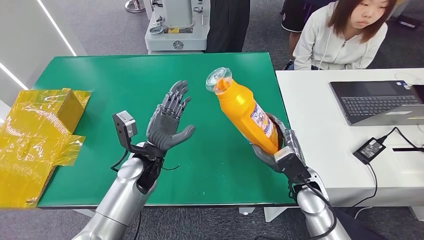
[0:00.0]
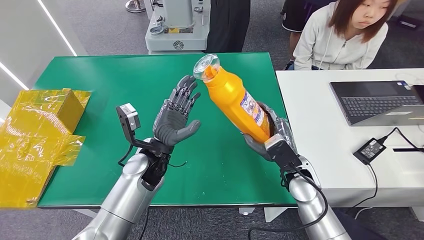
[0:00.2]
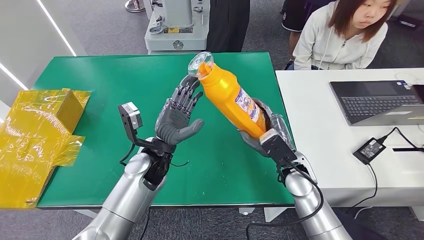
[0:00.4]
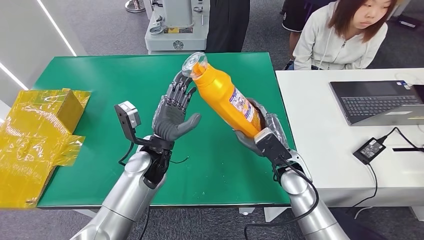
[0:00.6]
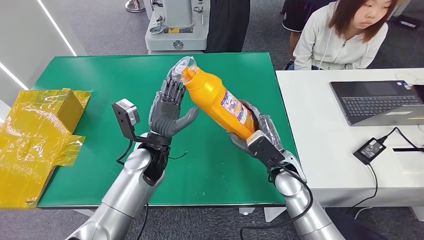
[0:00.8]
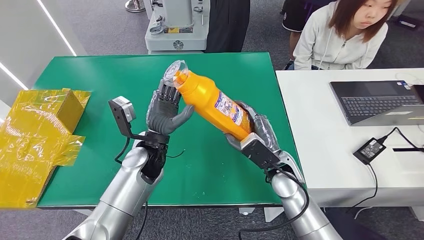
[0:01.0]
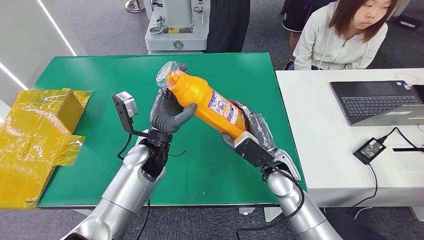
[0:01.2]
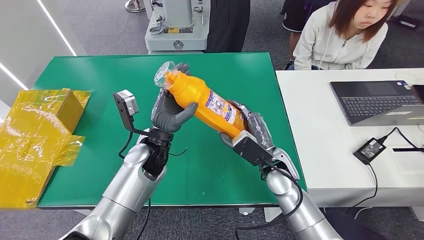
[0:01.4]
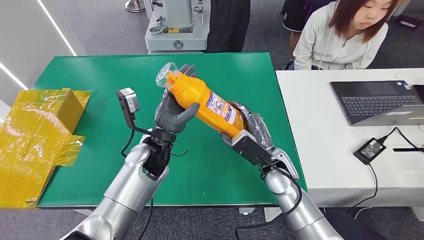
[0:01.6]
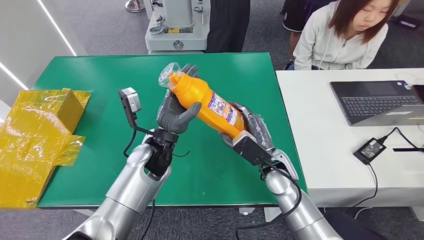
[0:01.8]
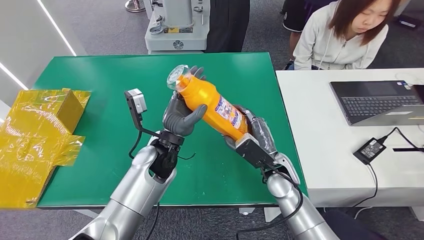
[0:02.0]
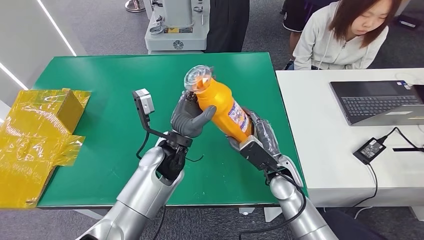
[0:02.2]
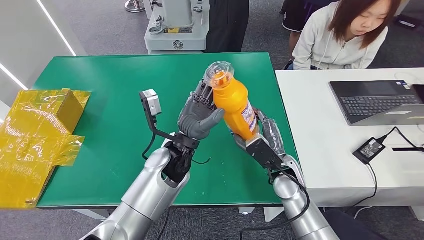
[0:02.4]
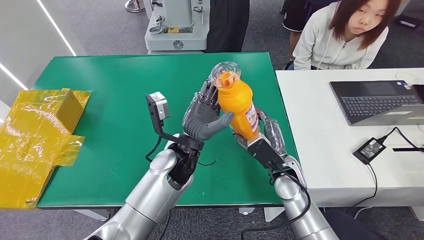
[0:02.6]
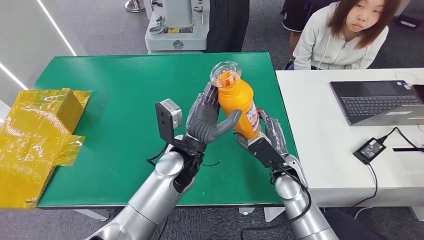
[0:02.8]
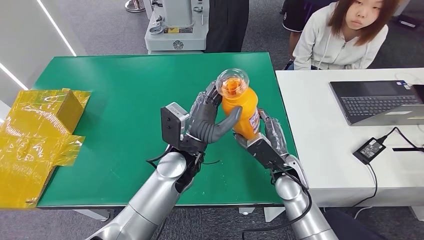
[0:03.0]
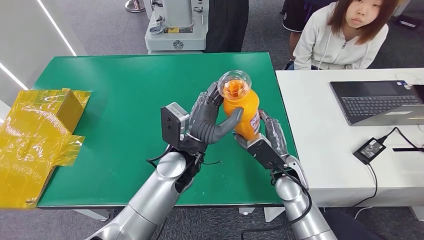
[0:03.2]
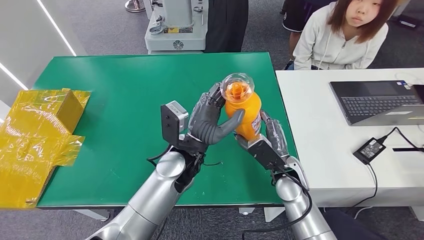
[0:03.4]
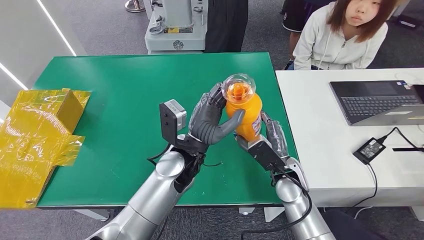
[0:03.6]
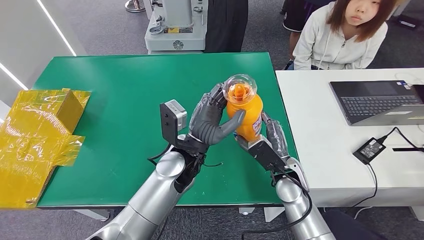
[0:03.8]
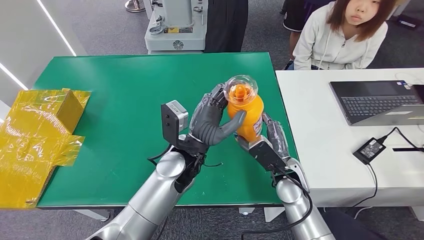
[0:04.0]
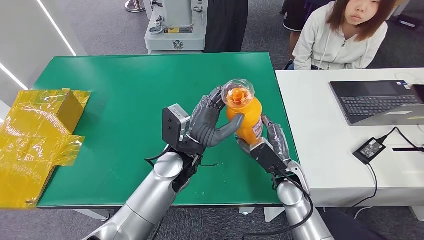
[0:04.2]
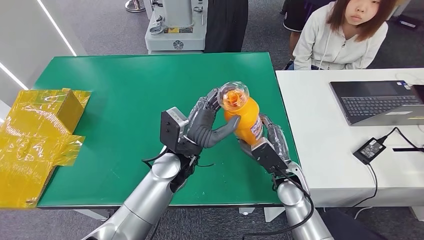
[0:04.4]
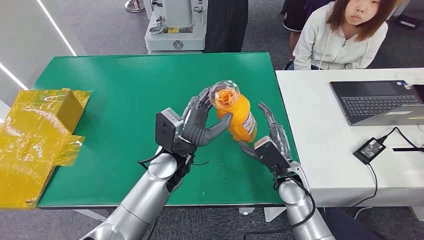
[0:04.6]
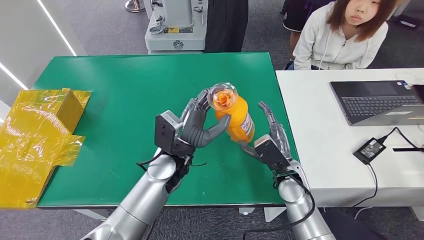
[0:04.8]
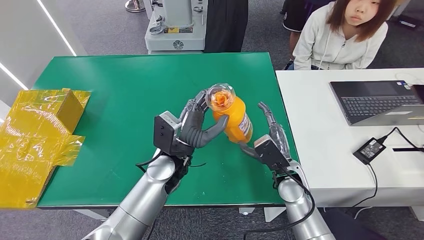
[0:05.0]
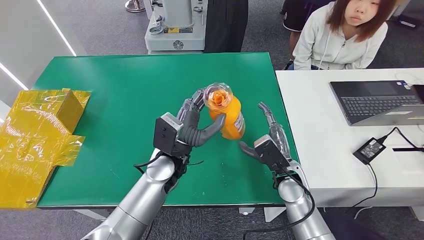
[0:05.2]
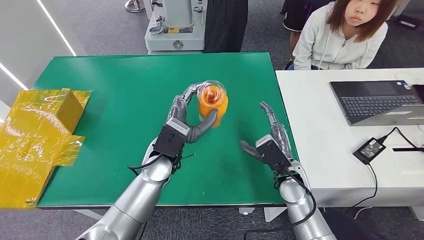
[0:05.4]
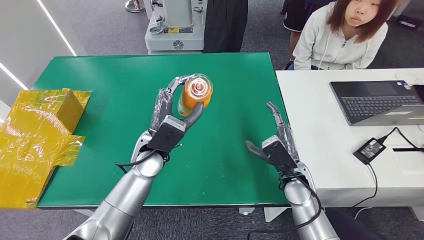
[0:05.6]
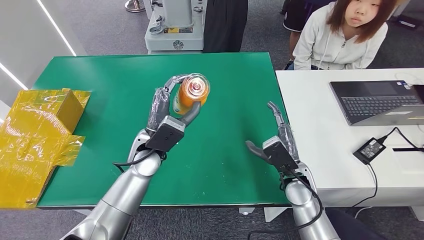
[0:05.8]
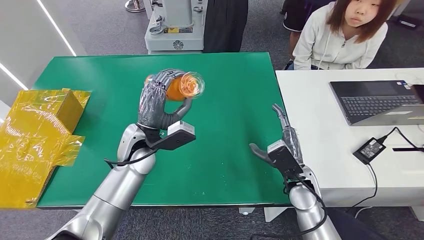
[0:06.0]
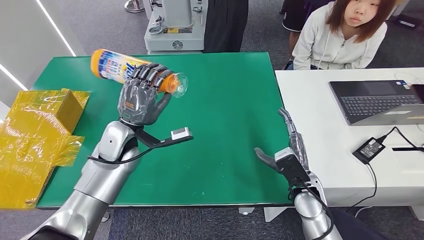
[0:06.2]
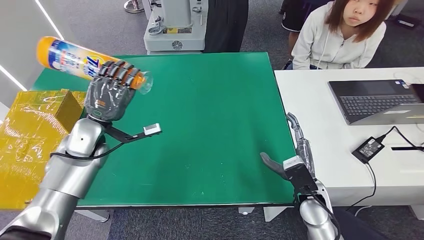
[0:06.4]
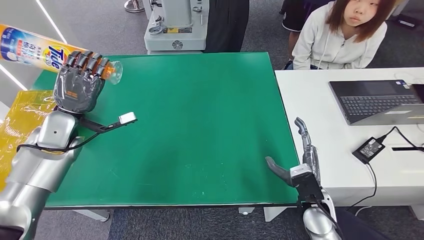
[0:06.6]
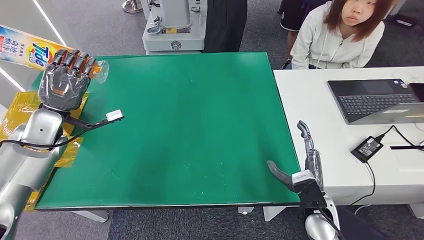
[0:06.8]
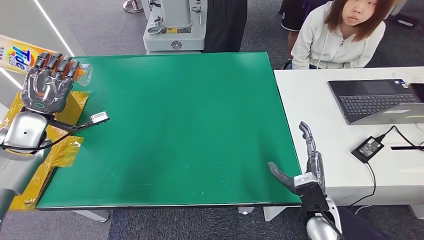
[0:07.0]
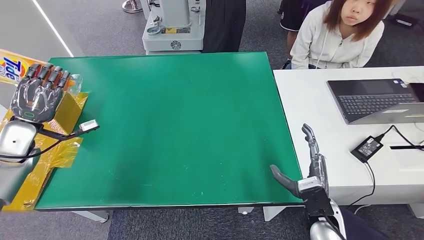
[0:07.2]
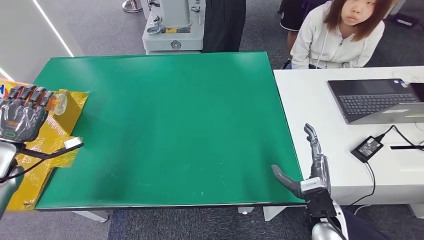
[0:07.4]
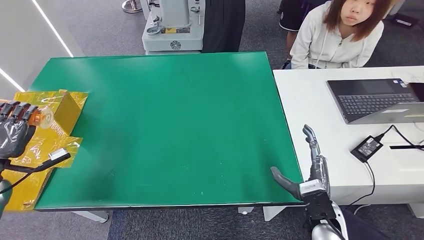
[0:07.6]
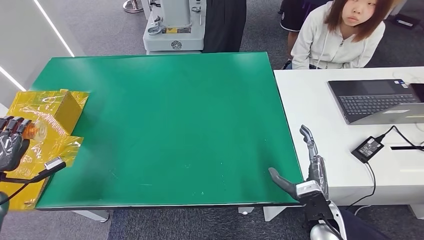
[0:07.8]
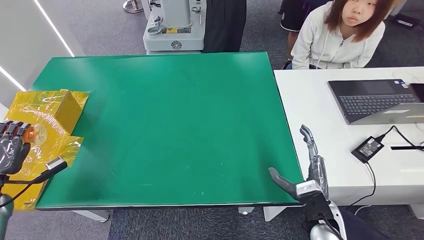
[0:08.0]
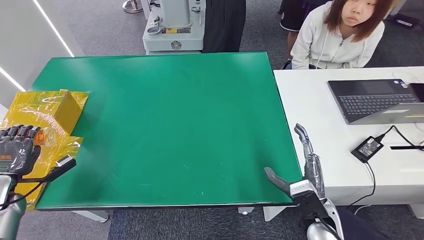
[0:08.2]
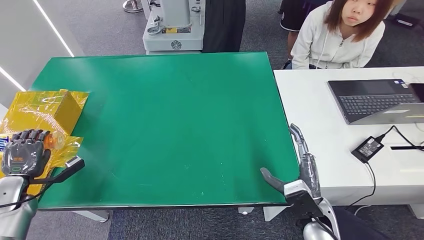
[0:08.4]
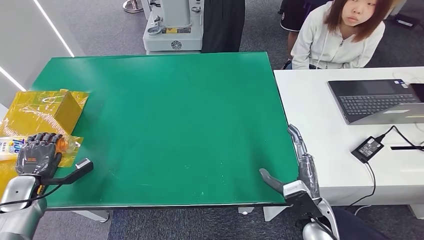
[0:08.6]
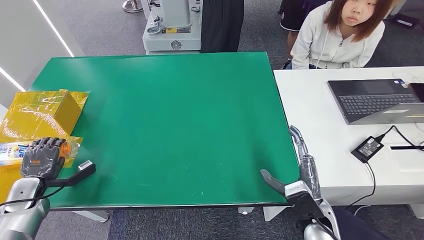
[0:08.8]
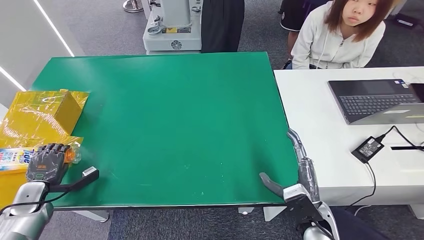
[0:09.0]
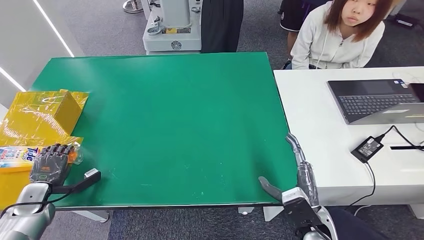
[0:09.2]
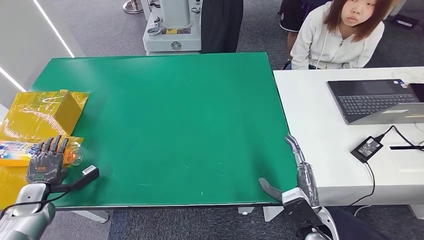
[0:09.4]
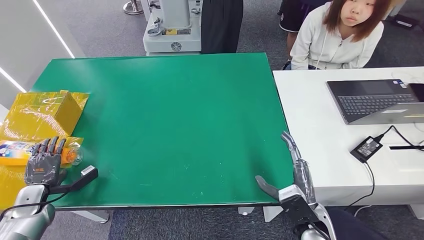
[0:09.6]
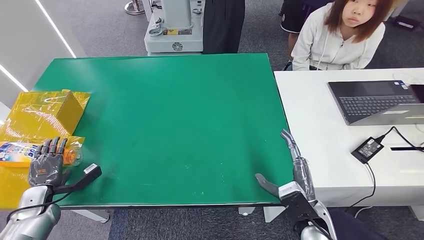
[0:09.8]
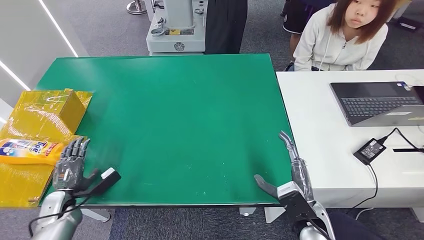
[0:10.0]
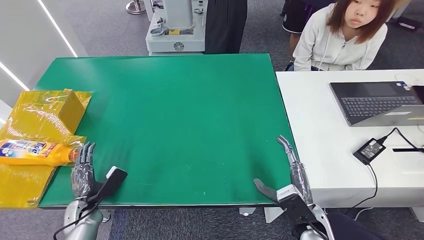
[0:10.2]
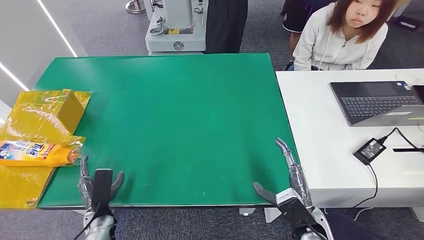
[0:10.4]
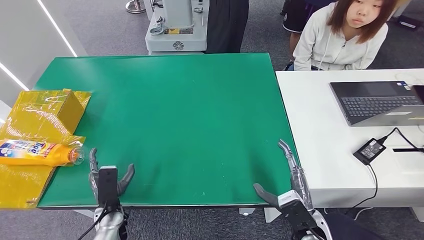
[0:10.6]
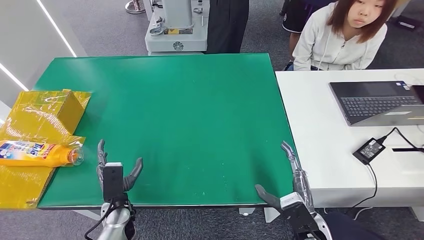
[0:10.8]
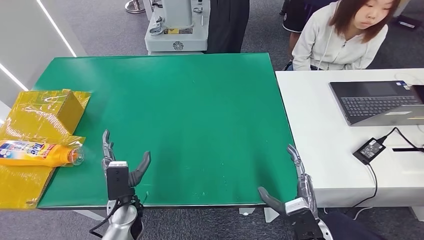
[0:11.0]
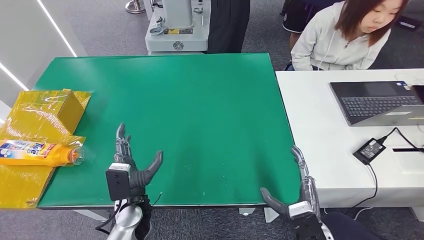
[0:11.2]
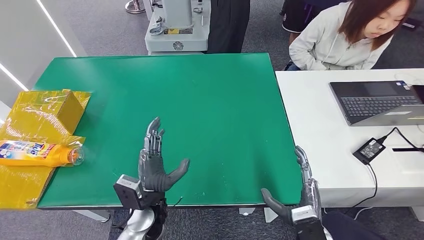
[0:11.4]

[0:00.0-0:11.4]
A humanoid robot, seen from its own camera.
Step, 0:03.0 to 0:11.4: Turn the bottle to the front side.
0:00.0 to 0:01.4: The right hand goes approximately 5 cm to the left.
0:01.4 to 0:02.8: The left hand heads to the right, covering roughly 10 cm.
0:02.8 to 0:04.2: The hands make only small movements.
0:04.2 to 0:05.6: The left hand is displaced to the left by approximately 5 cm.
0:07.2 to 0:08.6: The left hand goes some 15 cm downward and backward.
0:10.0 to 0:11.4: The right hand shifts about 5 cm backward, while the left hand is displaced to the right by about 30 cm.
